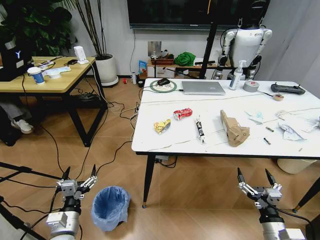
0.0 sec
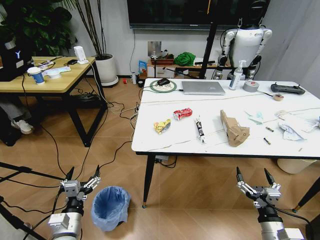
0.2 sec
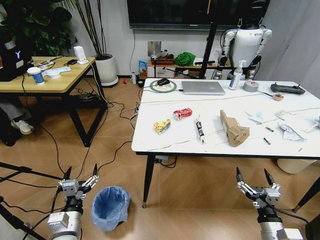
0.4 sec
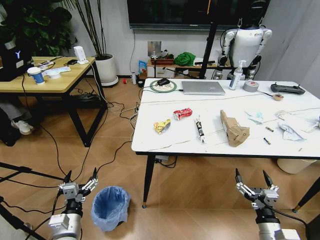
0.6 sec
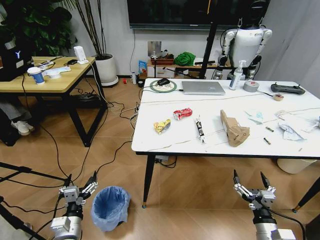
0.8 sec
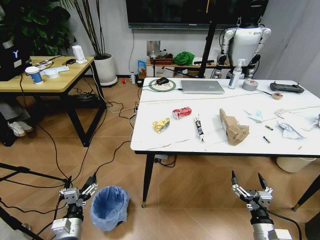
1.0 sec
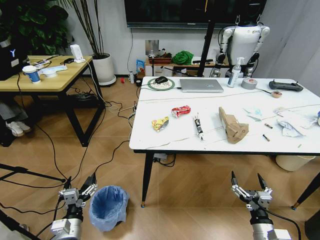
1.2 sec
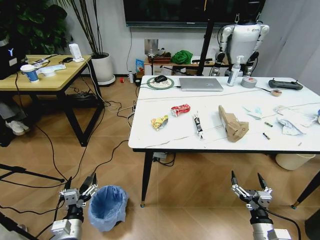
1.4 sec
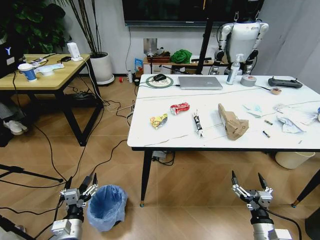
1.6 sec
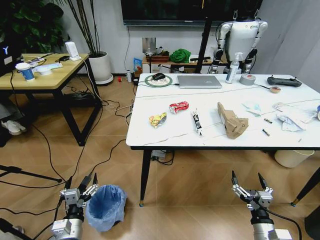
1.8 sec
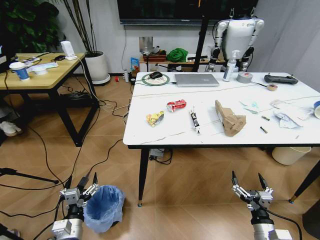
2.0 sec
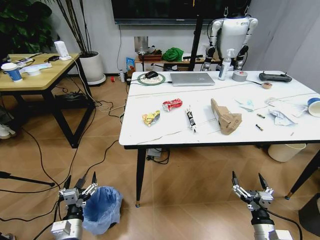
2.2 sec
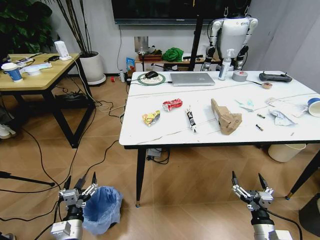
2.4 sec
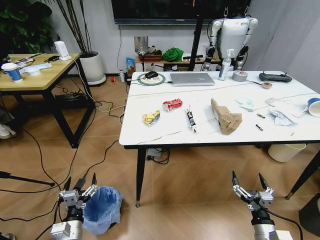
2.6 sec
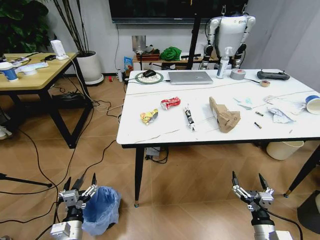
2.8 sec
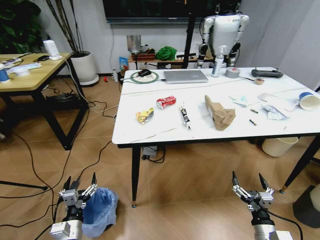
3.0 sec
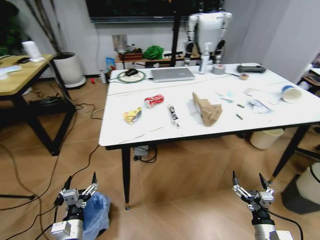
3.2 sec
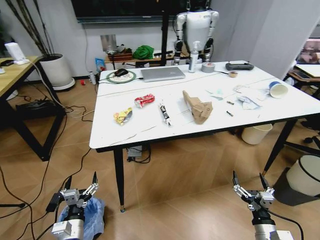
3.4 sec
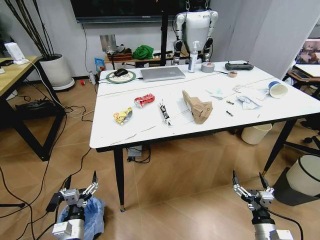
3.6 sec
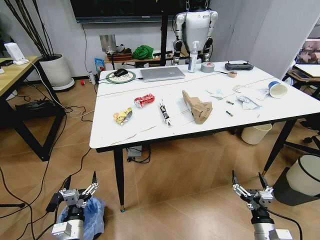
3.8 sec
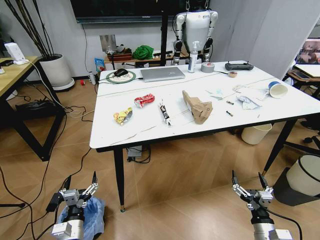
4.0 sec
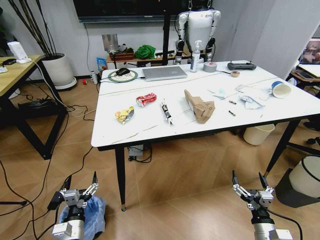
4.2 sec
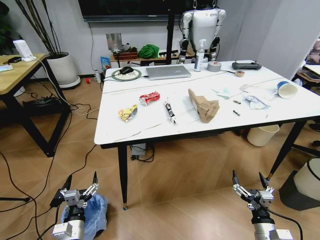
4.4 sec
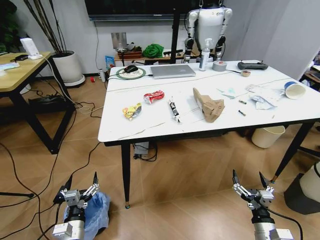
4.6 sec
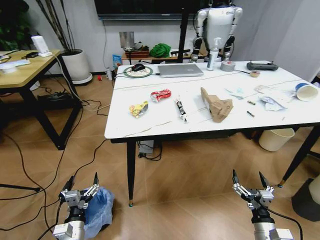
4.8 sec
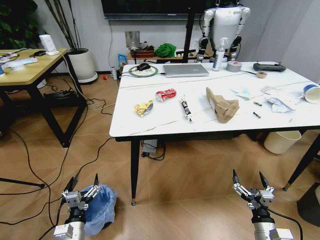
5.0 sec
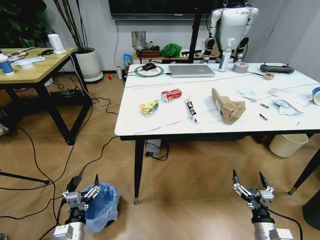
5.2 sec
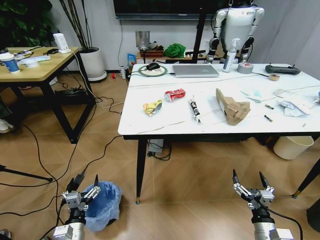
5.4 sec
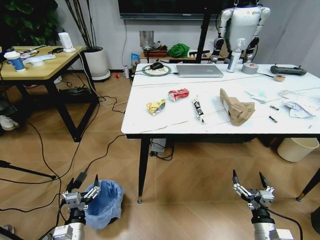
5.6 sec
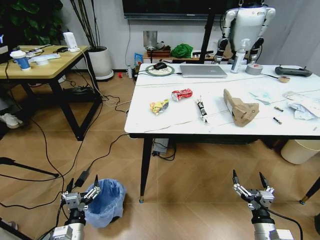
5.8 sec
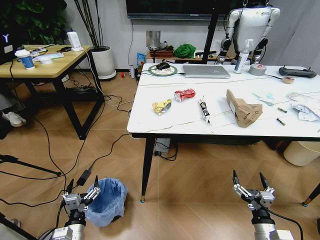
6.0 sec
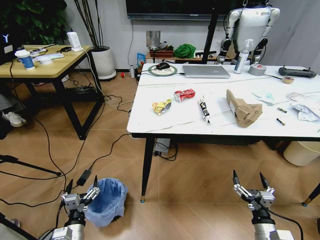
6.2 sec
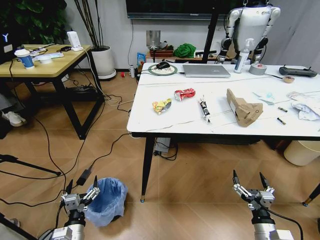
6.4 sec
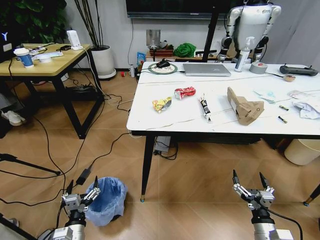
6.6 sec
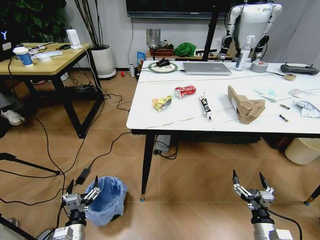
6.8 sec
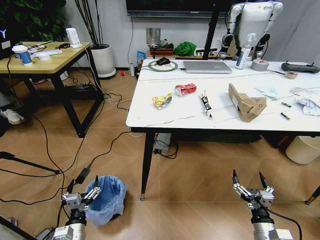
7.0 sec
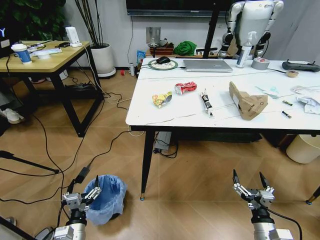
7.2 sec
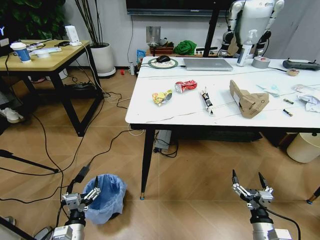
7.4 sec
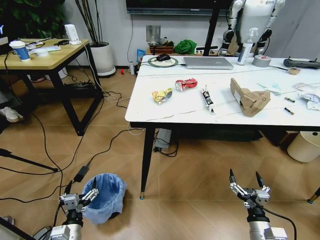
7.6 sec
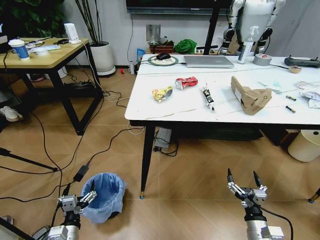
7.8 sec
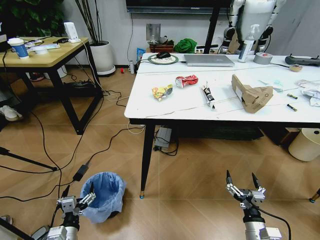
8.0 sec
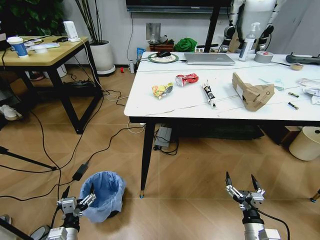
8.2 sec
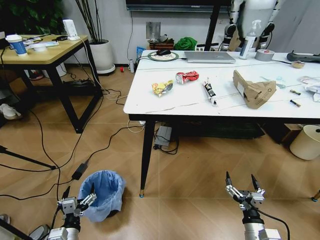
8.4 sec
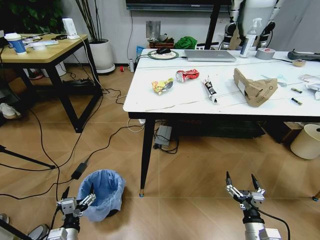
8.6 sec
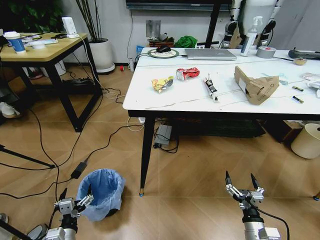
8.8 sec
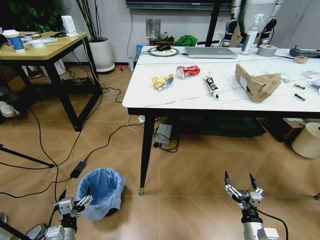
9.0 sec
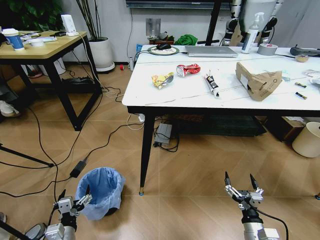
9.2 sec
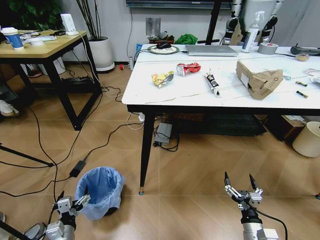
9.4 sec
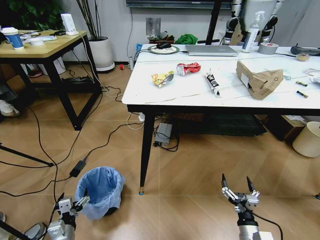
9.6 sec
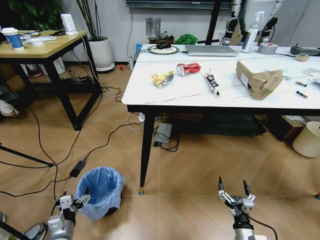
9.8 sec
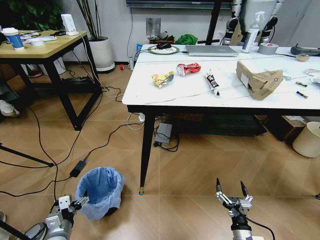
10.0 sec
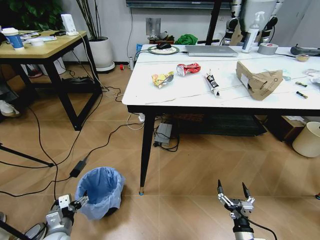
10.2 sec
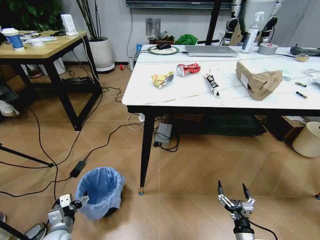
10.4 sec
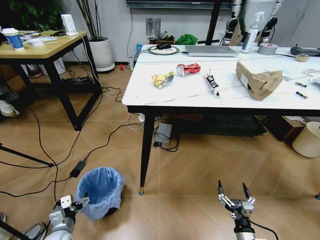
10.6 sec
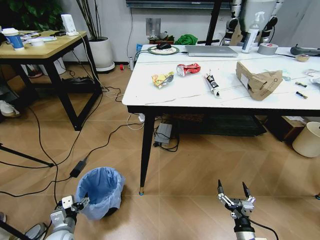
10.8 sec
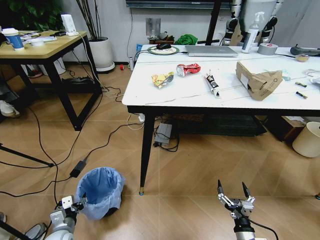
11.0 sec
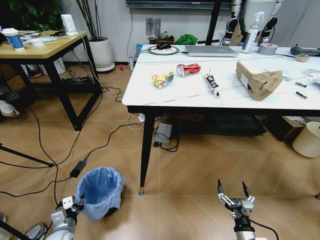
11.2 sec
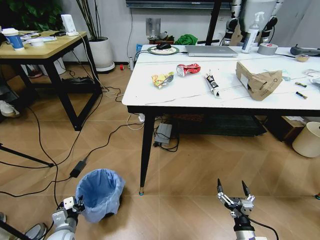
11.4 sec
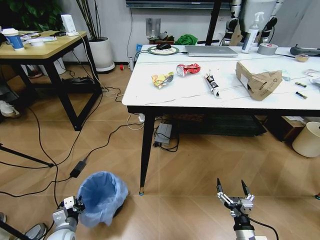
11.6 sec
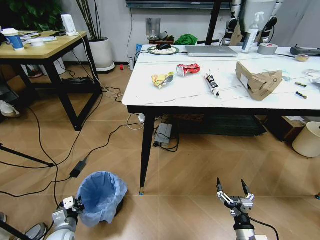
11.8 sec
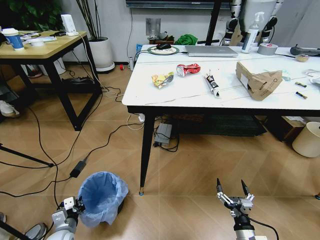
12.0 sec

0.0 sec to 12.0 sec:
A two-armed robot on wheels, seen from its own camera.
Task of the whole recording: Pick up the trash bin and place the trash from the table into it.
9.0 sec to 10.4 sec: The left gripper moves forward, approximately 5 cm.
10.4 sec to 12.0 sec: The left gripper closes.

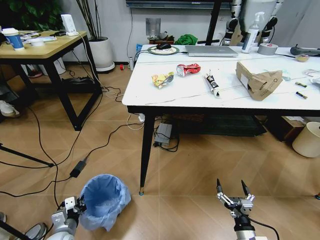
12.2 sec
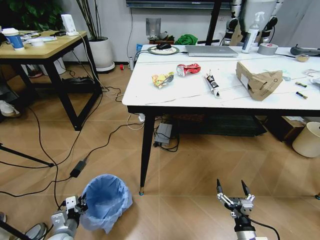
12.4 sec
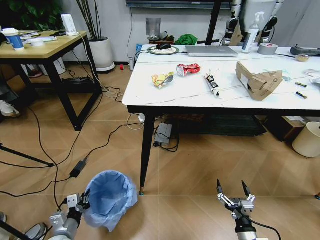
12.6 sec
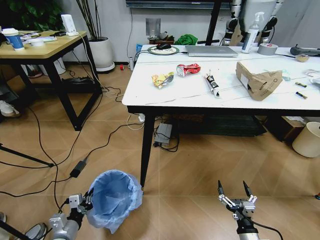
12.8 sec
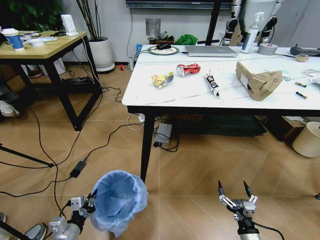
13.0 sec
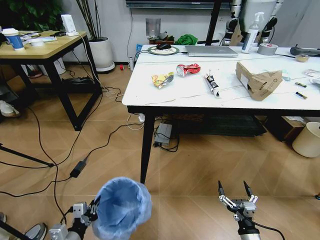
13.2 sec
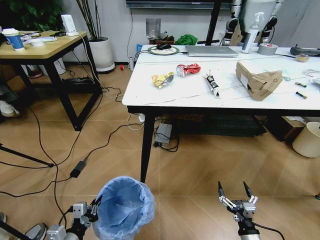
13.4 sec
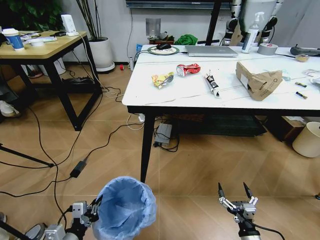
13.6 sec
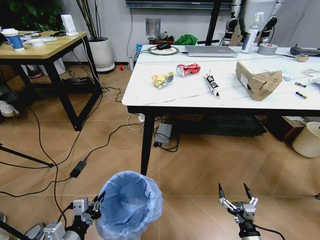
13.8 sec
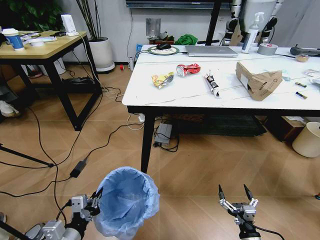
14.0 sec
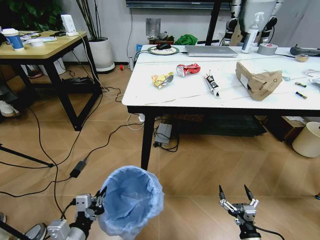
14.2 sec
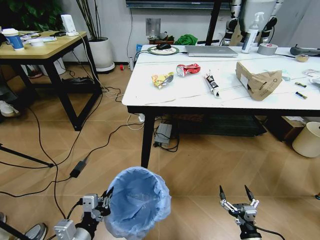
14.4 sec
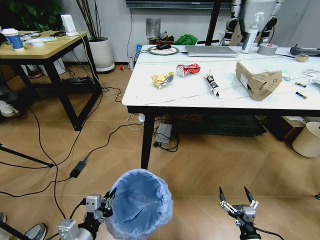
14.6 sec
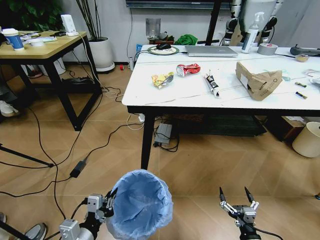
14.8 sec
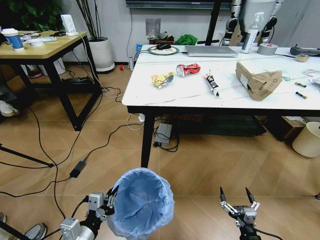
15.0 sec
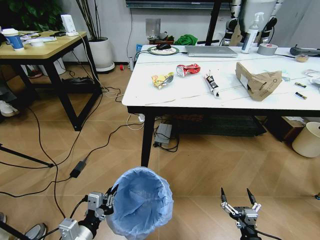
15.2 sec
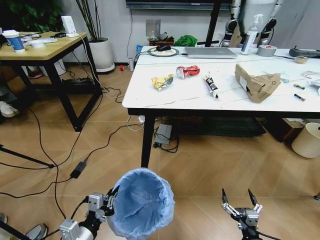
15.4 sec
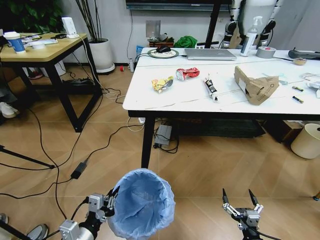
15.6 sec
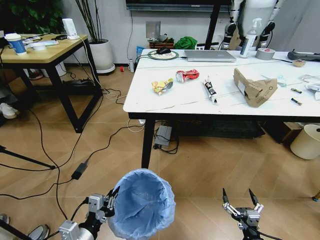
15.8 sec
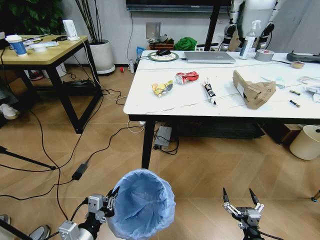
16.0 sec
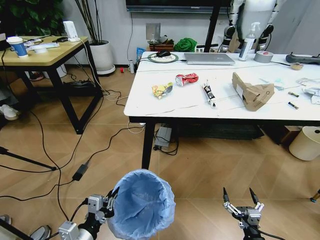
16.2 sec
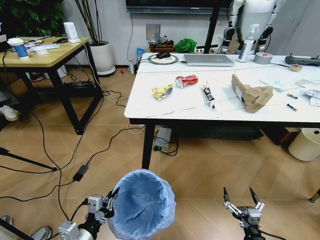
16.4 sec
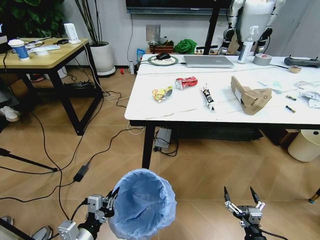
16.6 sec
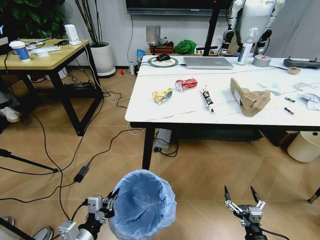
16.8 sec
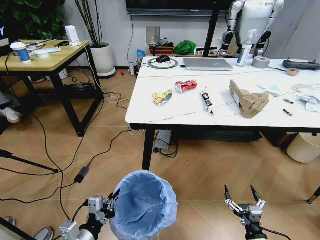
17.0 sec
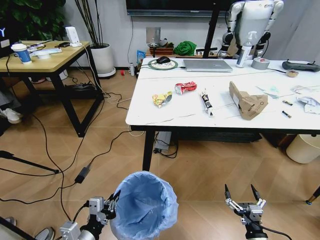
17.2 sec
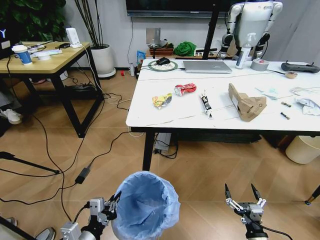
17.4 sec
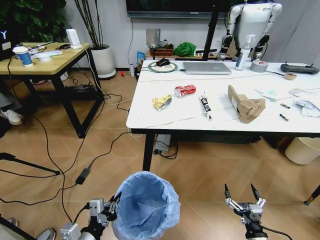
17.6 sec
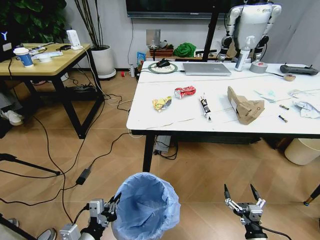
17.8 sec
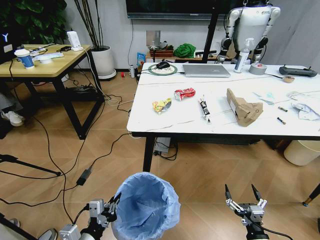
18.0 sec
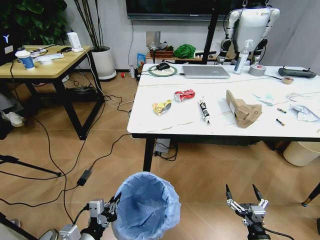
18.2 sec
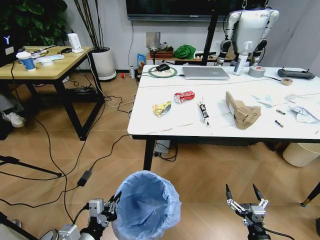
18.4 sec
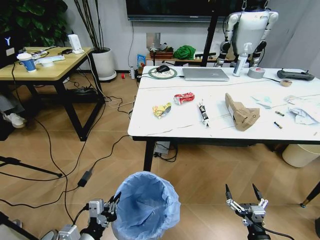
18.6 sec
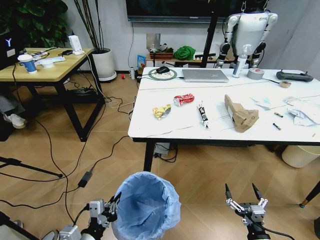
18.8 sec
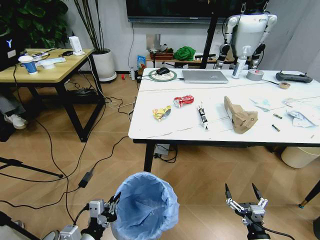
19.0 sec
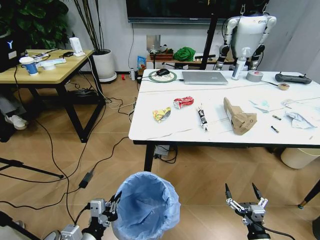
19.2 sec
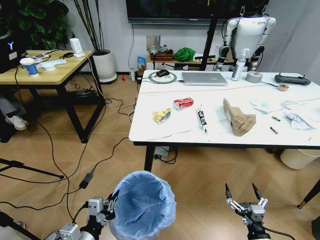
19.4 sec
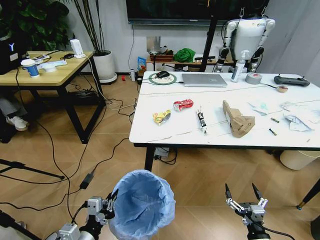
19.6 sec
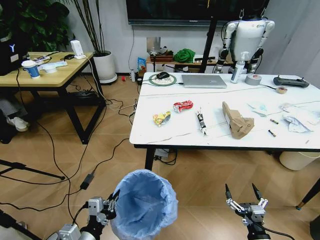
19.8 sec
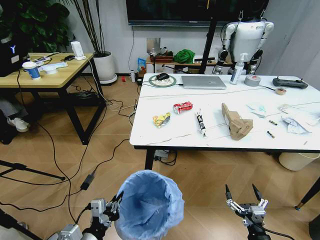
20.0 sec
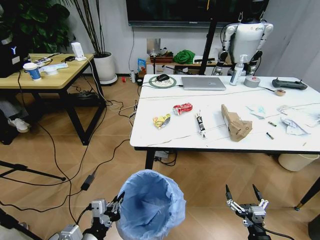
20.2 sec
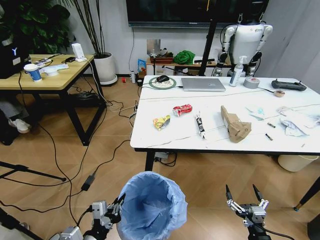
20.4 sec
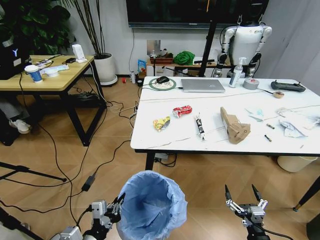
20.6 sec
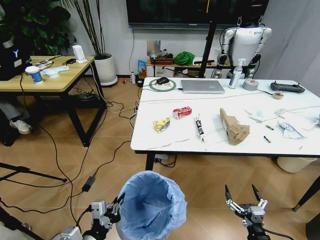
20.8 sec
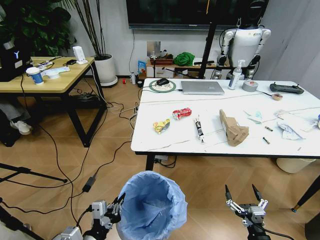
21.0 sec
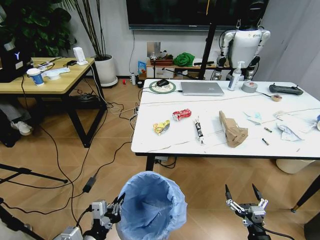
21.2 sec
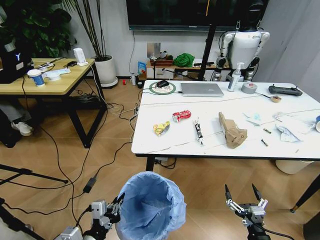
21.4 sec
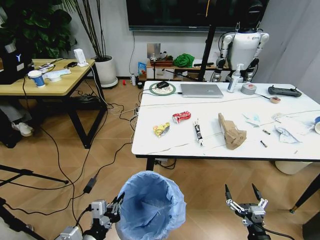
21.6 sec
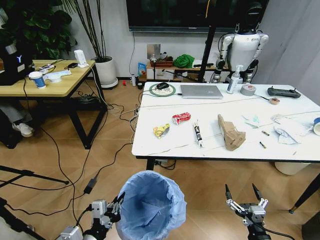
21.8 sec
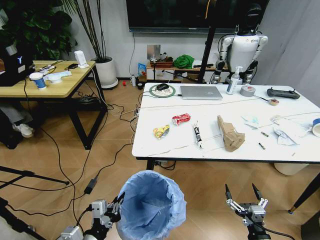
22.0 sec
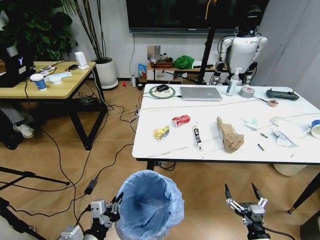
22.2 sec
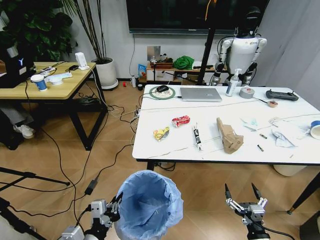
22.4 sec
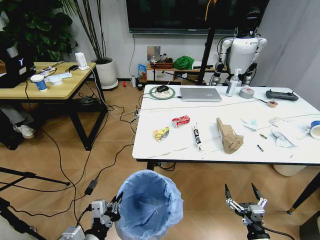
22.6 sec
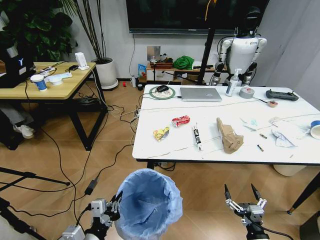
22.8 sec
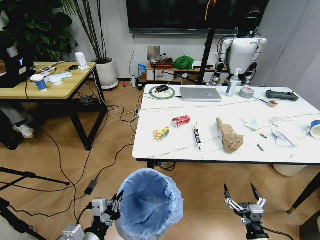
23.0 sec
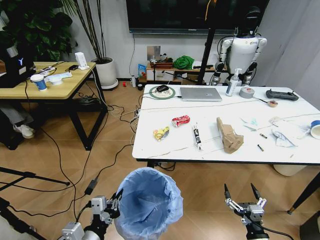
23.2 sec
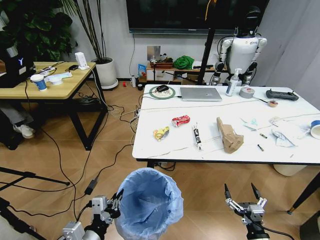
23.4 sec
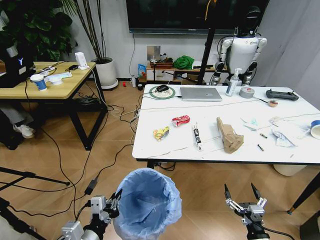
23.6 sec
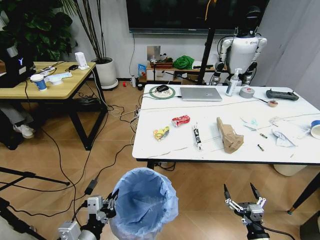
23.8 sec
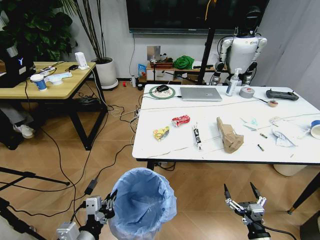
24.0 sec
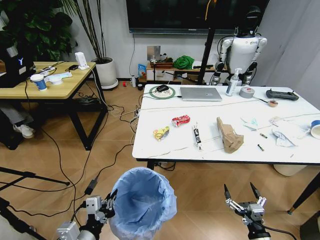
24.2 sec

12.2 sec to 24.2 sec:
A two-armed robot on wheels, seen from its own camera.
Task of the whole recording: Pick up the trash bin and place the trash from the table into it.
12.2 sec to 13.8 sec: The left gripper travels upward, backward and to the right by about 20 cm.
13.8 sec to 15.2 sec: The grippers make only small movements.
22.6 sec to 24.2 sec: The grippers move only a little.
